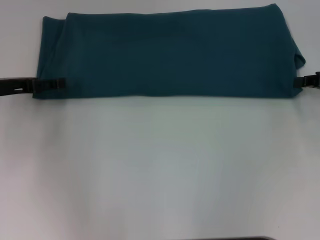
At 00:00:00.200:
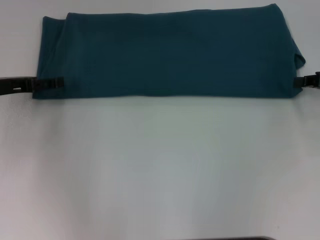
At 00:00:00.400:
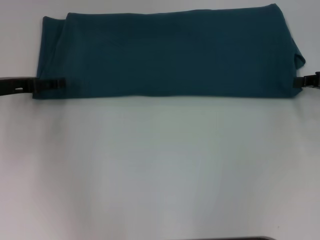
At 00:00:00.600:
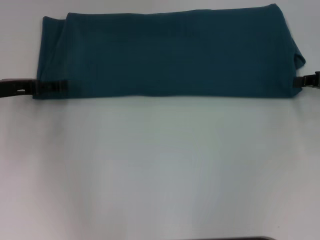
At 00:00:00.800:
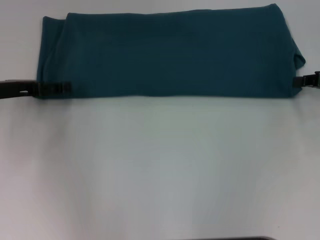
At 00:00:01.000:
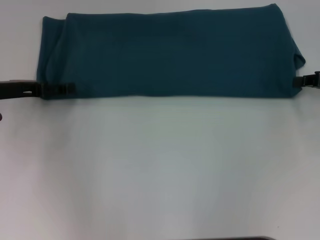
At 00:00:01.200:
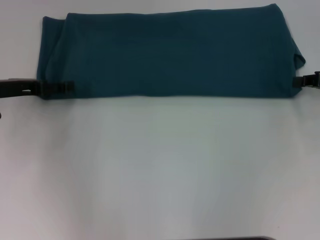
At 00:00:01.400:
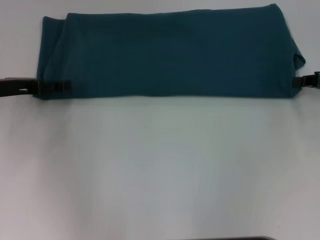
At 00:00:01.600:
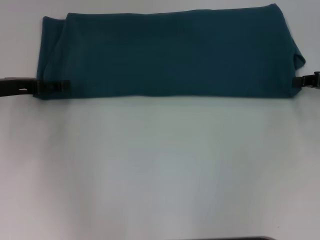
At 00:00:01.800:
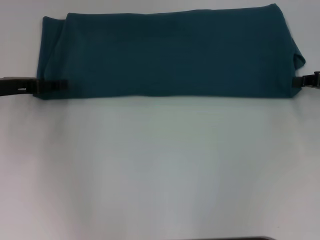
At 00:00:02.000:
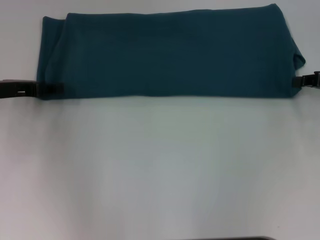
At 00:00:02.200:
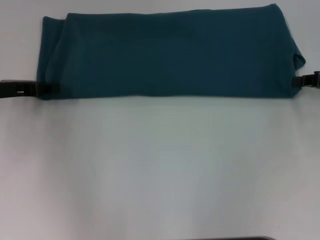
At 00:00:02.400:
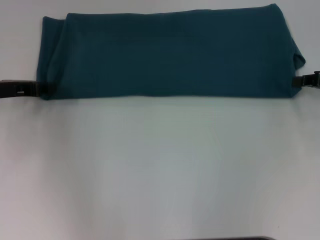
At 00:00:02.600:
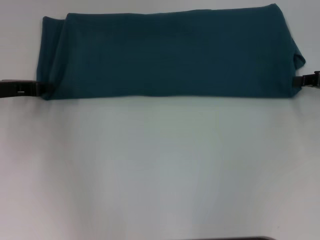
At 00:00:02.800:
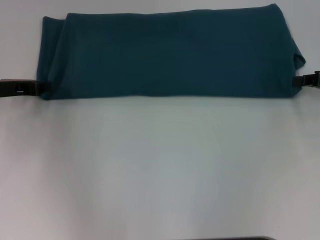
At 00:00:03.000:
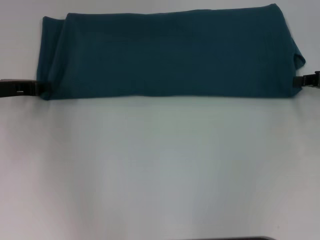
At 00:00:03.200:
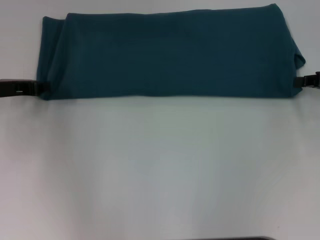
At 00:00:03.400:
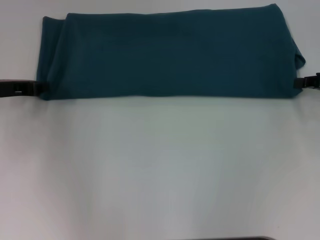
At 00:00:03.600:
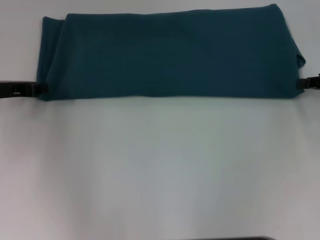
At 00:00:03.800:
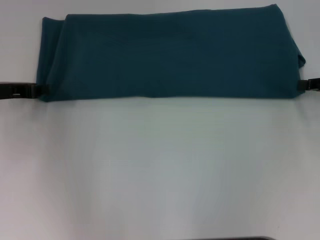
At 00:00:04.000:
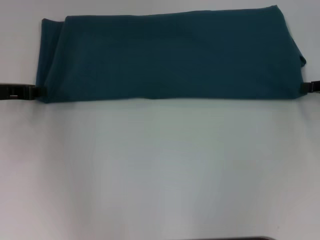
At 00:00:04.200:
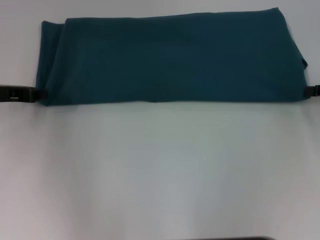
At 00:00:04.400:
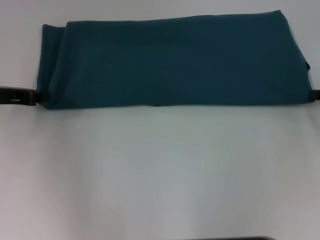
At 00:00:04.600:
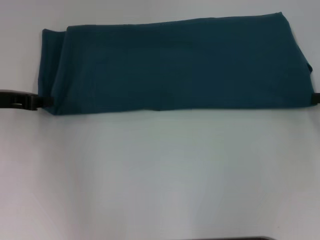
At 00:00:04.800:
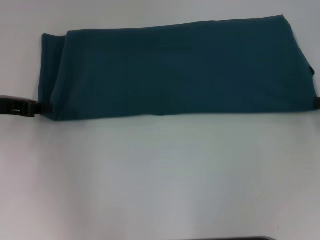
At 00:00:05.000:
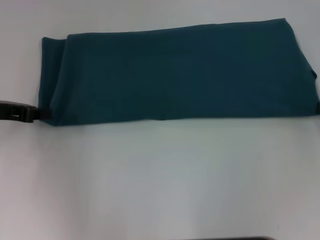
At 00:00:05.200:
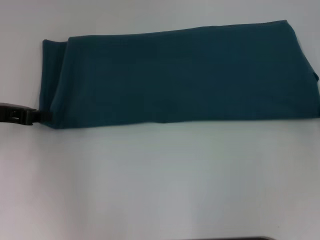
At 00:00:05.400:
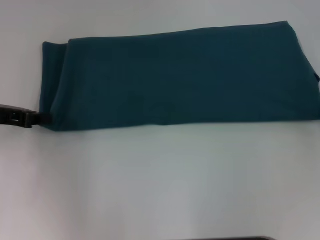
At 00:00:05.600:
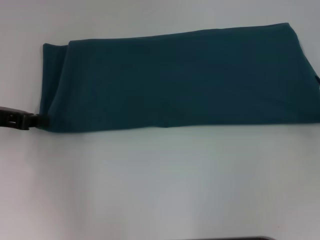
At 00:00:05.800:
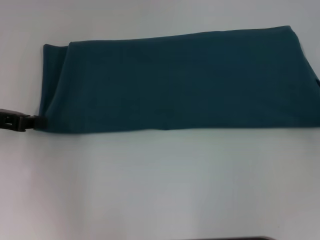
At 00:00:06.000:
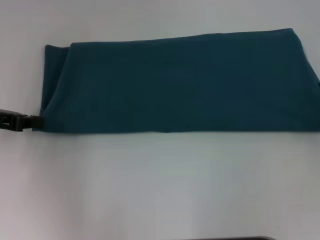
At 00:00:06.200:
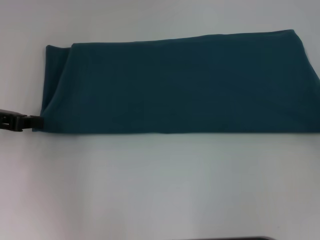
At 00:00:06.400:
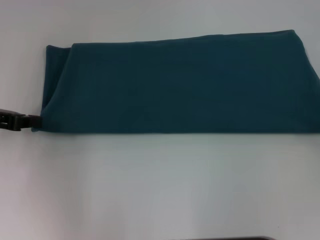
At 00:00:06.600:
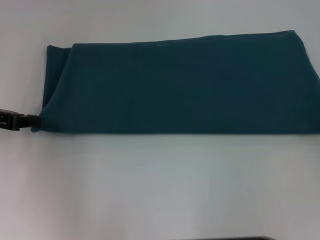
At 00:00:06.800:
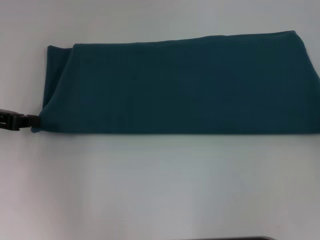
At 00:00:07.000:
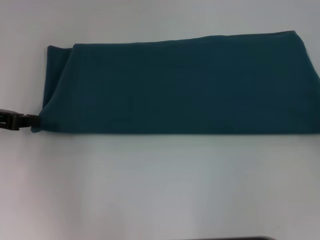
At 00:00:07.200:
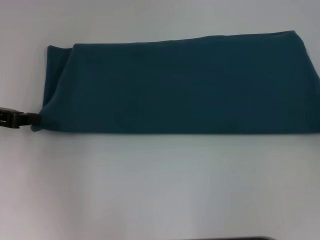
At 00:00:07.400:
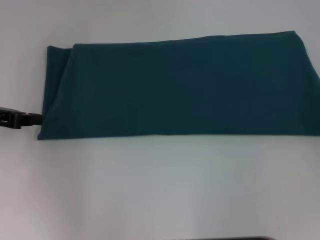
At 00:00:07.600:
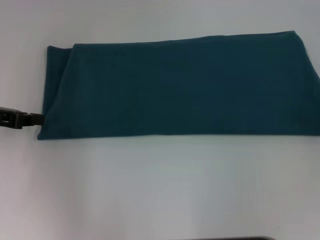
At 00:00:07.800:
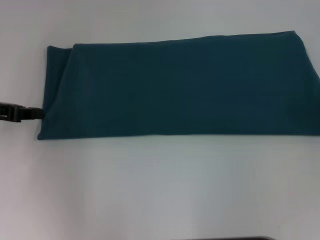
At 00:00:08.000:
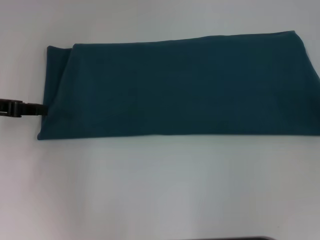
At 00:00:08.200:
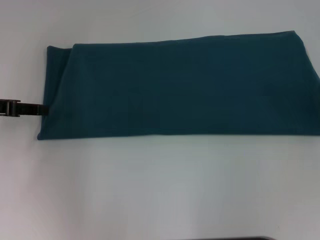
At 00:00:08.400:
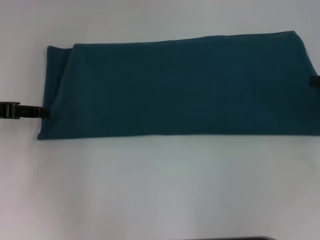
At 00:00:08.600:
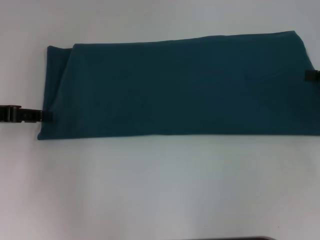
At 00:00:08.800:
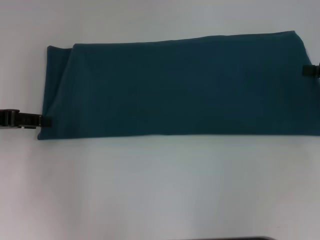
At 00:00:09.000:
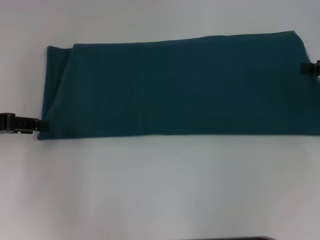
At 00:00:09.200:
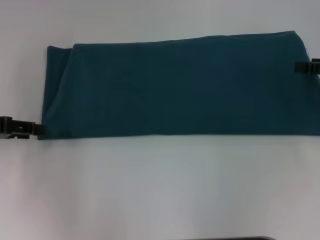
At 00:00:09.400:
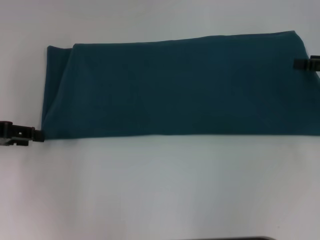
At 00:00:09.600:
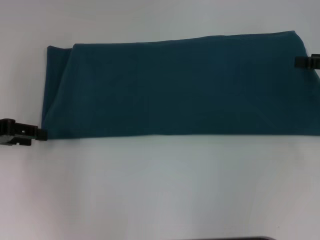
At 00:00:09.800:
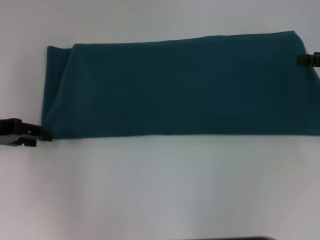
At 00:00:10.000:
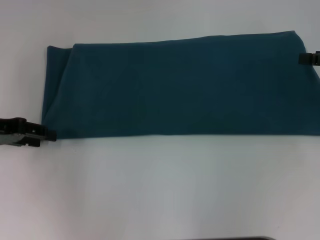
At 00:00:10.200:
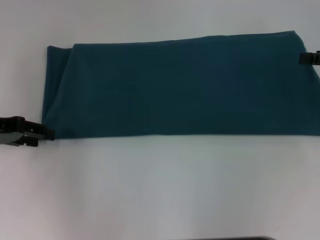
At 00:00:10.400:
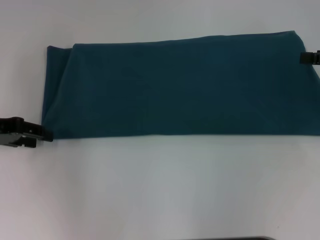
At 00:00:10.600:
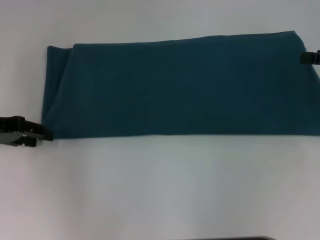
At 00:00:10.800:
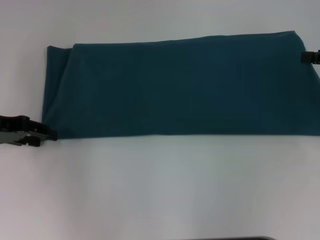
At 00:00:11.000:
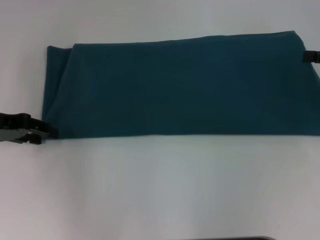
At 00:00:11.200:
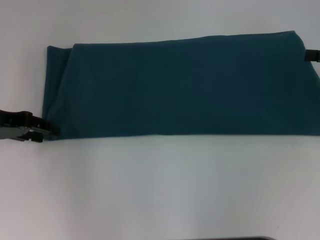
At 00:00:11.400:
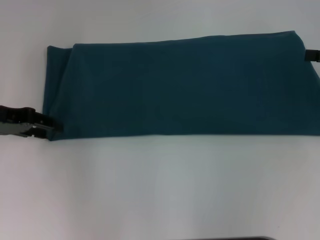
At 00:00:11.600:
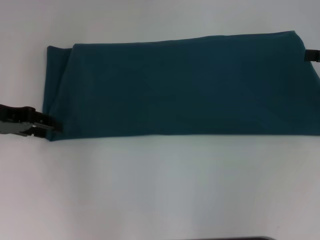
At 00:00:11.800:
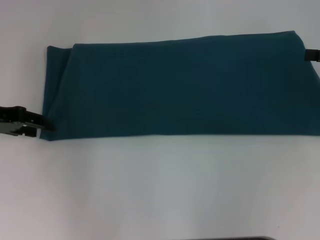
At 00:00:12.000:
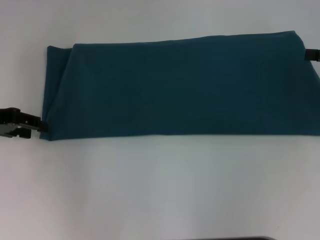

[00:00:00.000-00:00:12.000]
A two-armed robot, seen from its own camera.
Step, 00:00:00.000 to 00:00:07.600: Pull the clothes with your left hand.
Step, 00:00:00.000 to 00:00:07.600: Pull the clothes with your right hand.
00:00:00.000 to 00:00:01.600: Both grippers stay about where they are.
00:00:03.000 to 00:00:04.400: There are only small adjustments of the grippers.
00:00:04.400 to 00:00:06.000: The right gripper shifts by some 5 cm.
00:00:06.000 to 00:00:07.600: Neither gripper changes place.
00:00:07.600 to 00:00:09.000: The left gripper opens.
00:00:09.000 to 00:00:12.000: There are only small adjustments of the grippers.

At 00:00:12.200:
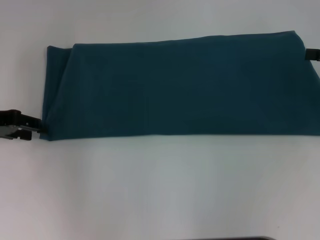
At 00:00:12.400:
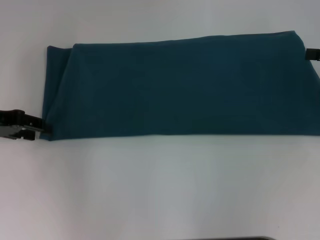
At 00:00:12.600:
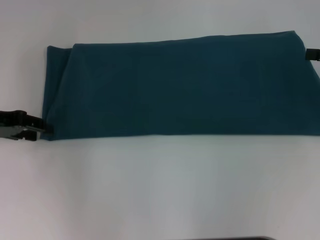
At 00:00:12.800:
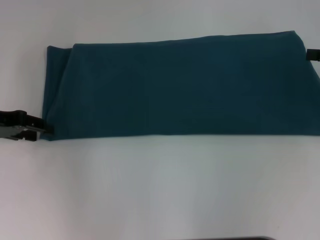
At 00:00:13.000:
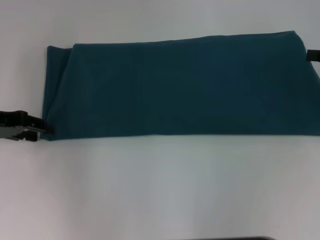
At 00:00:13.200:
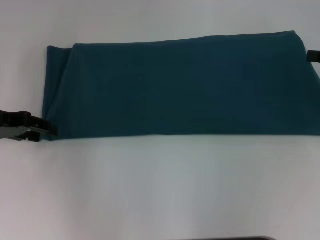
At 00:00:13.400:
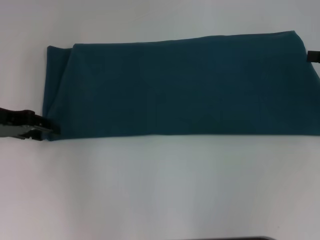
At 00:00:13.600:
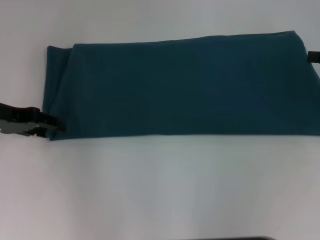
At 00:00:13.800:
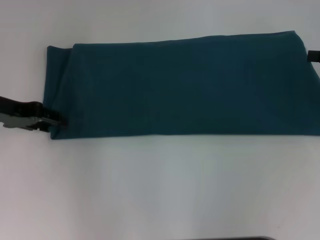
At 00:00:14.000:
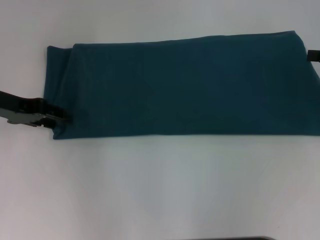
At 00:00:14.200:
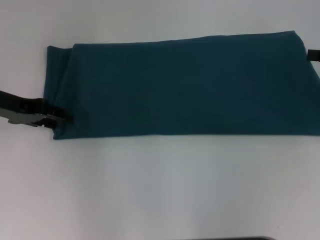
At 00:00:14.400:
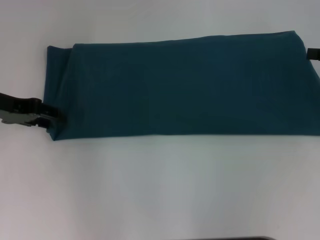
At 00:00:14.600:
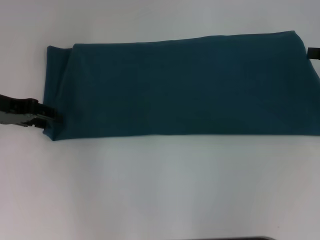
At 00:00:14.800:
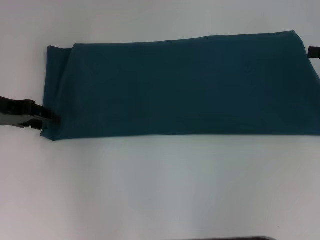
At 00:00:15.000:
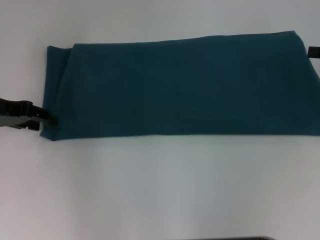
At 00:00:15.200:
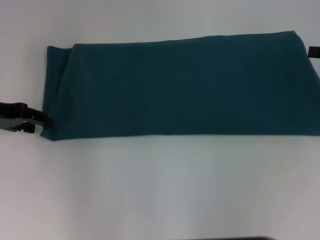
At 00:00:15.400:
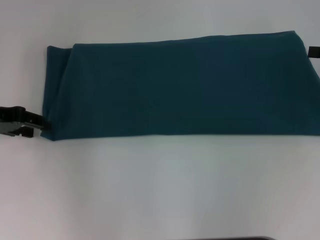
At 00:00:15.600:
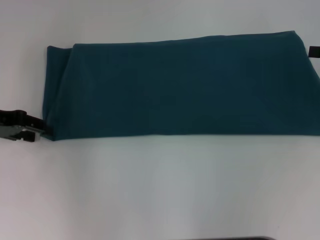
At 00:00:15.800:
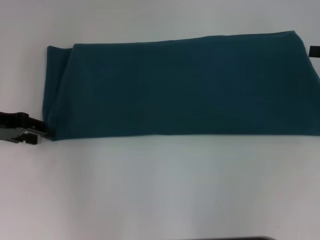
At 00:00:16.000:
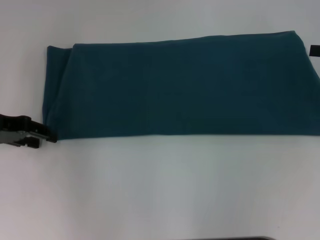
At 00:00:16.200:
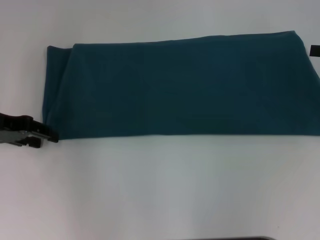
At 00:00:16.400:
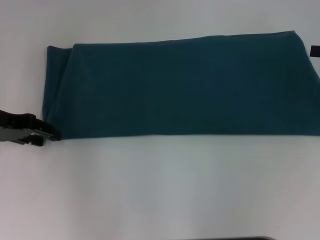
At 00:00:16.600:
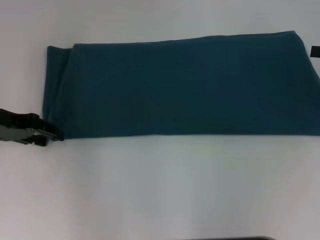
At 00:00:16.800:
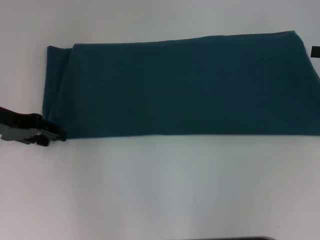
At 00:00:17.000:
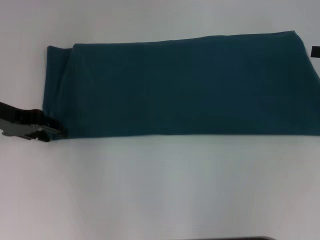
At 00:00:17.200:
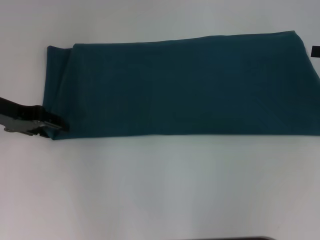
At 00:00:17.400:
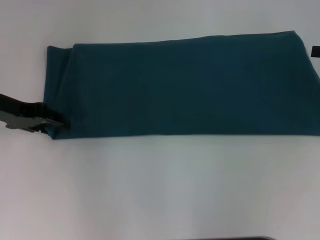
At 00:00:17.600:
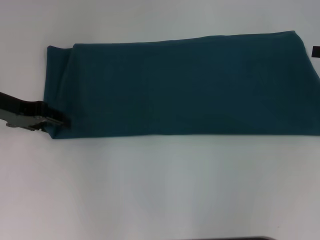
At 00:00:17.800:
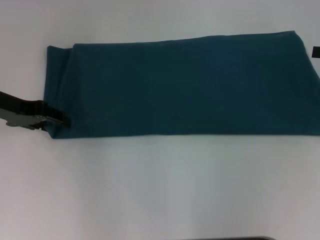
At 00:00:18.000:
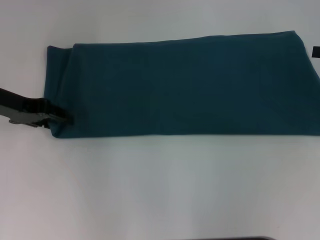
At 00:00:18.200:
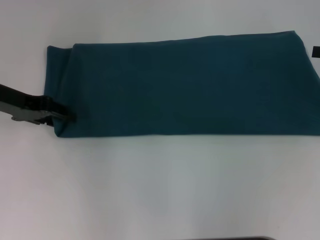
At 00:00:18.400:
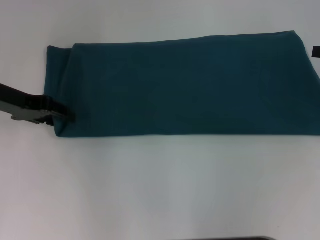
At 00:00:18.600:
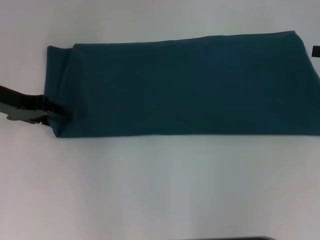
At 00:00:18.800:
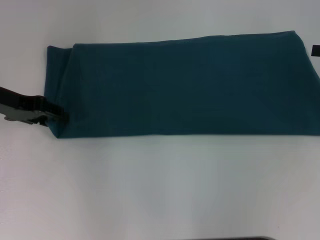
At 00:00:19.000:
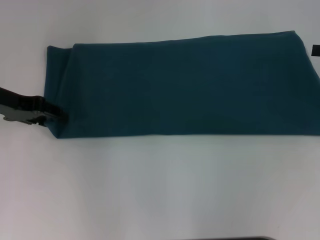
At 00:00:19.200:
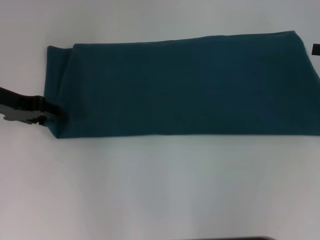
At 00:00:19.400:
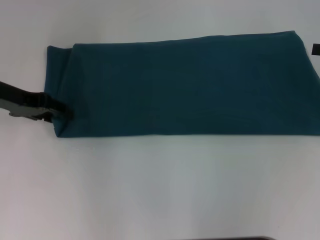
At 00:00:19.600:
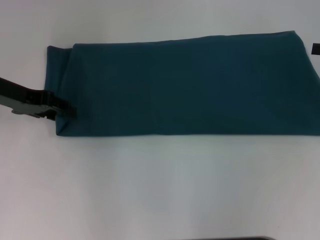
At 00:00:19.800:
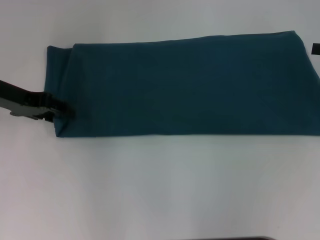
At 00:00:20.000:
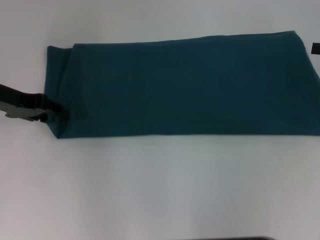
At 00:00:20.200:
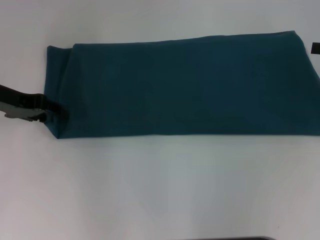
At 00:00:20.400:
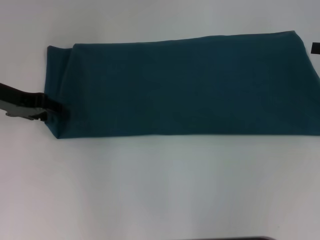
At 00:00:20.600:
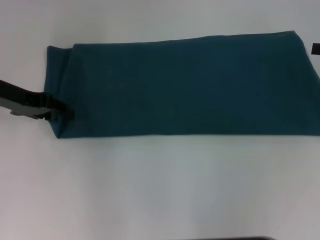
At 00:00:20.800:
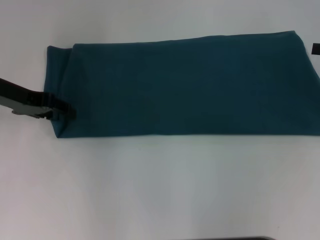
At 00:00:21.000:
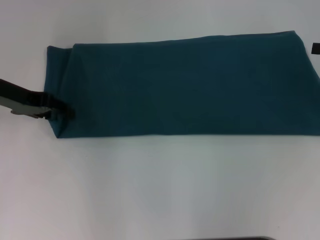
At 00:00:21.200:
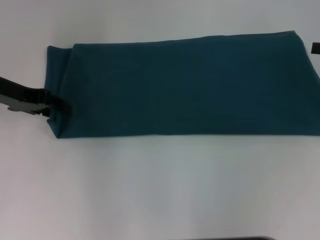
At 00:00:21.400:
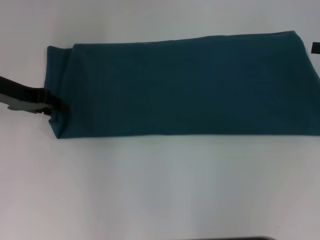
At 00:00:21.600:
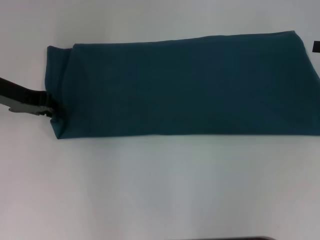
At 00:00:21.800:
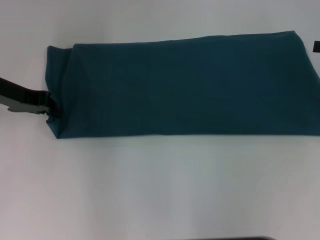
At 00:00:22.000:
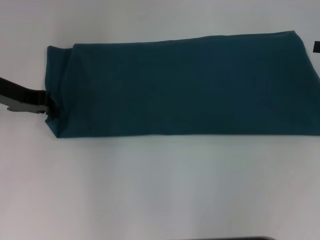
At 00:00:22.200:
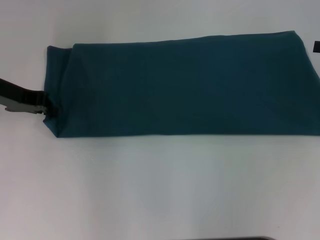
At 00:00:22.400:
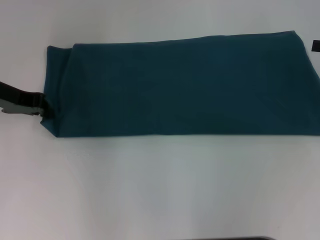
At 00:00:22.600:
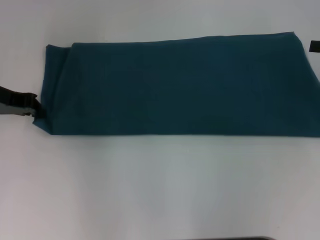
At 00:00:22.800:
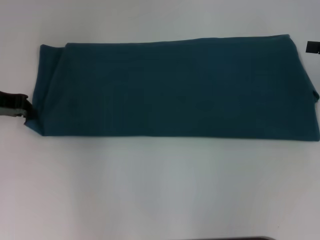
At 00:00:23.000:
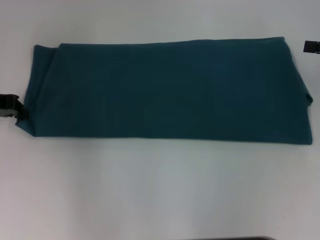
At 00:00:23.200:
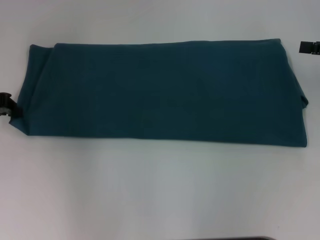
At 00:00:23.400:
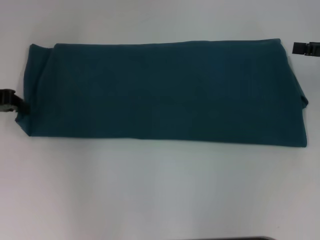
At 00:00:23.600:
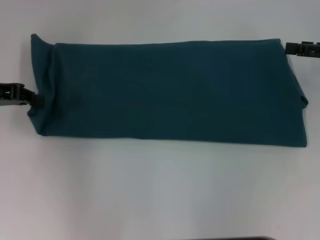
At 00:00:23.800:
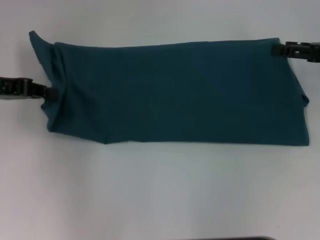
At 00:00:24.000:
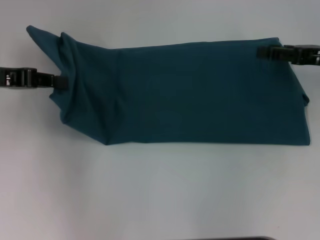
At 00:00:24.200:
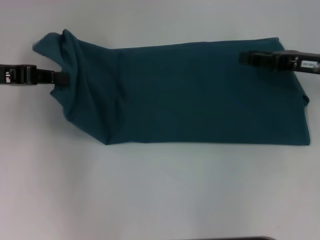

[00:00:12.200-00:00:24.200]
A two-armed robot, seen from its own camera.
00:00:12.200 to 00:00:18.200: There are only small adjustments of the grippers.
00:00:18.200 to 00:00:19.800: Both grippers stay put.
00:00:19.800 to 00:00:21.200: Both grippers stay put.
00:00:21.200 to 00:00:22.600: The left gripper closes up.
00:00:22.600 to 00:00:24.200: The right gripper shifts approximately 10 cm to the left.